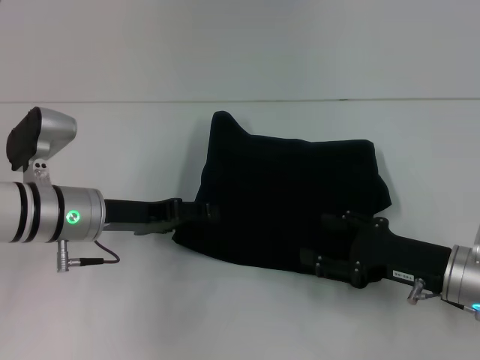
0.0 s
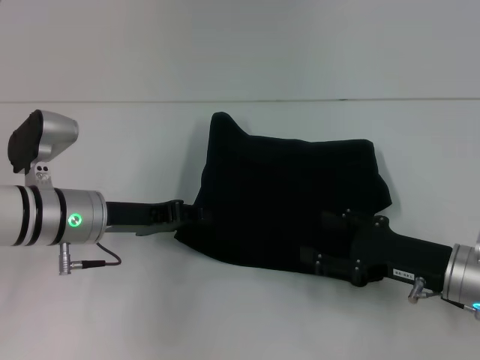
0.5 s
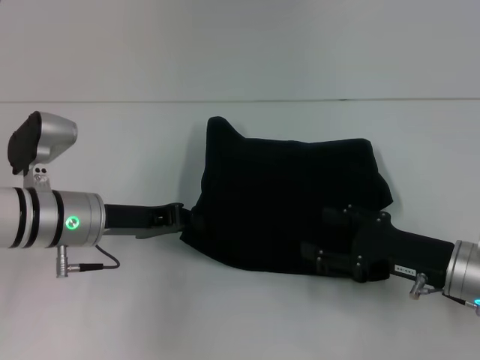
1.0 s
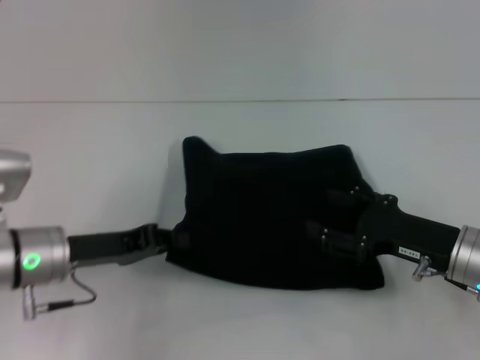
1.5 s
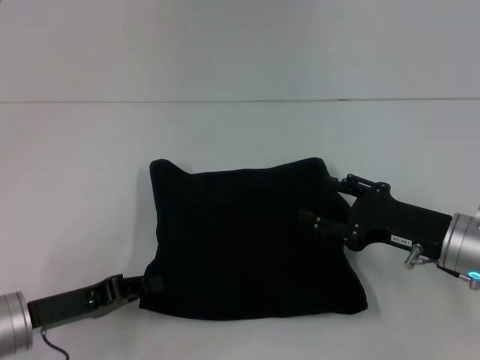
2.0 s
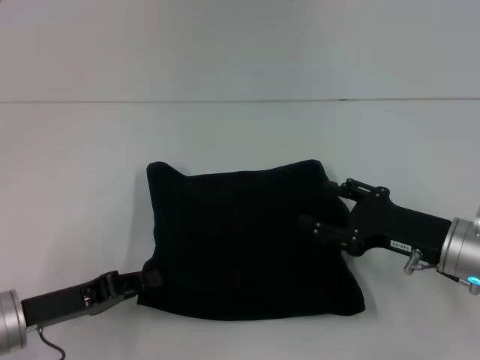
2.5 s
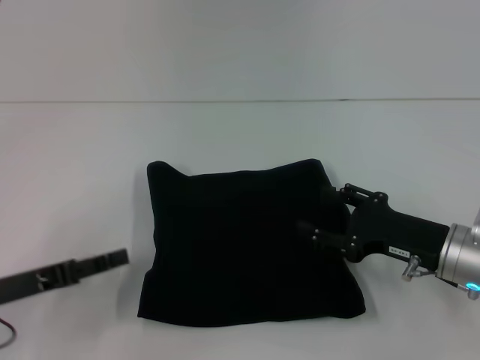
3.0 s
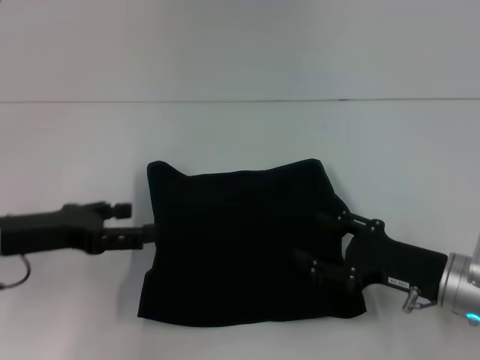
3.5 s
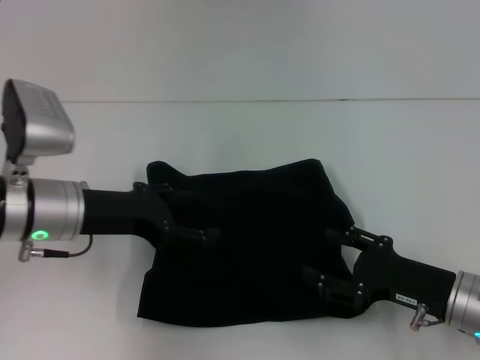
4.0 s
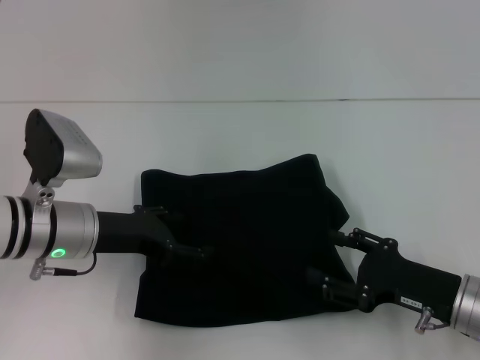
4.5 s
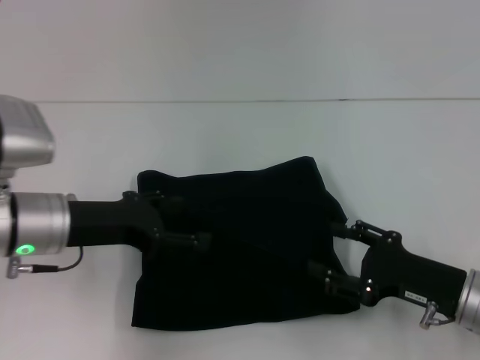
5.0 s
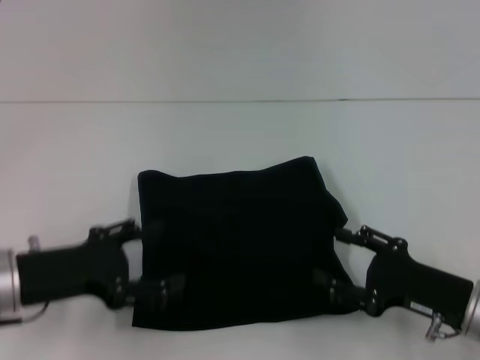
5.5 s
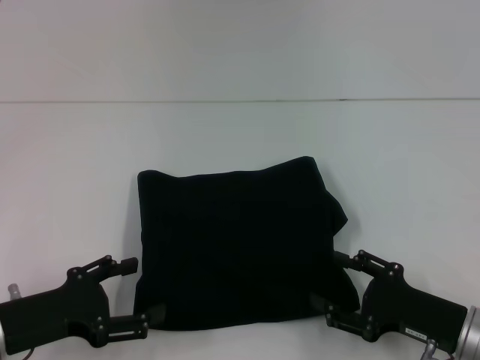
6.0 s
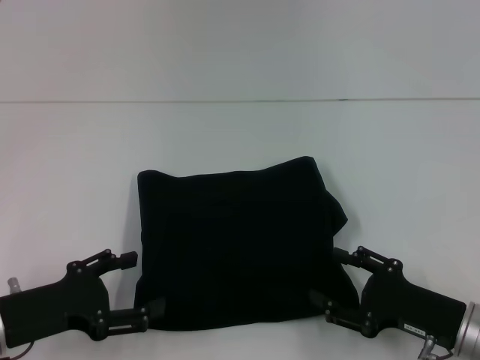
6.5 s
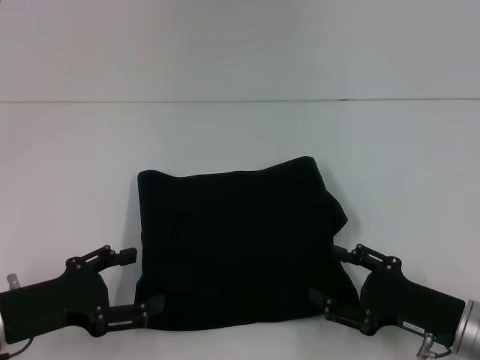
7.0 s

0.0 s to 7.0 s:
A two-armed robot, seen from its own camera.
0.0 to 2.0 s: The left gripper heads backward and to the left, covering some 10 cm, and closes its fingers.
2.0 to 3.5 s: The left gripper moves upward and forward, approximately 10 cm, and opens its fingers.
3.5 to 5.0 s: The left gripper travels to the right by some 5 cm.
5.0 to 7.0 s: The left gripper is displaced backward, downward and to the left by about 10 cm.

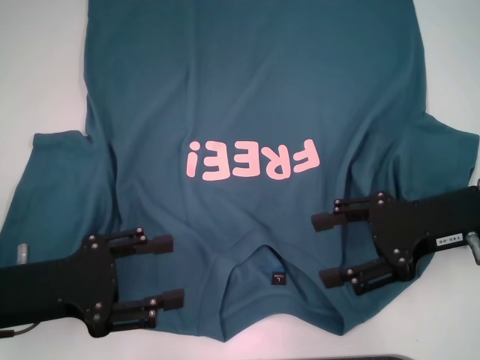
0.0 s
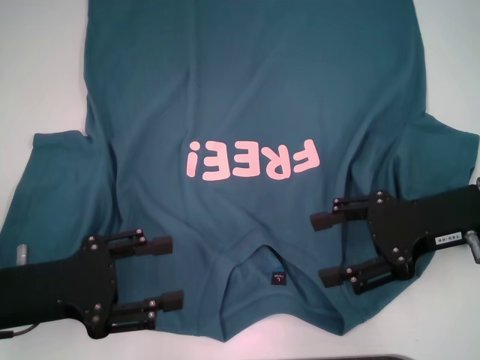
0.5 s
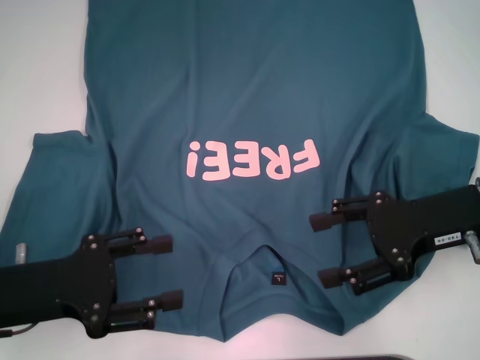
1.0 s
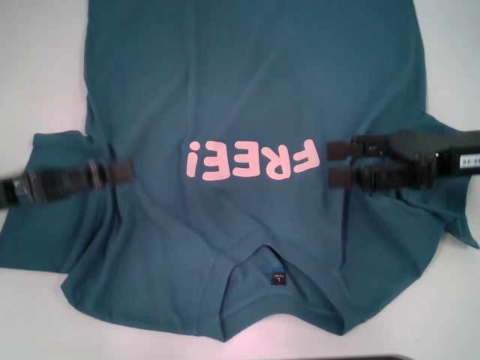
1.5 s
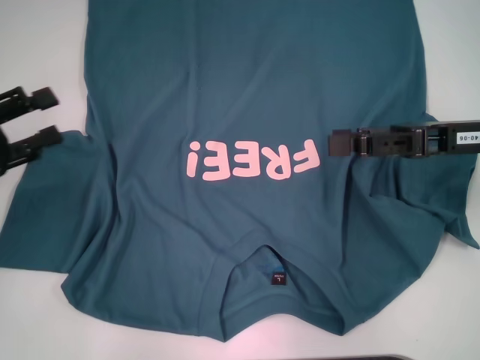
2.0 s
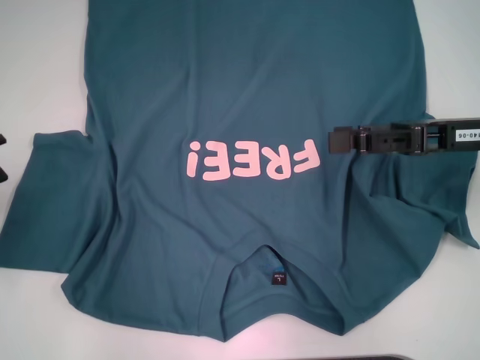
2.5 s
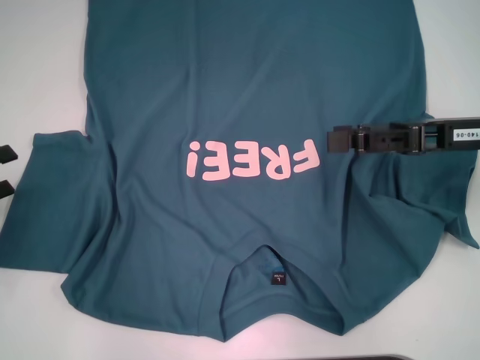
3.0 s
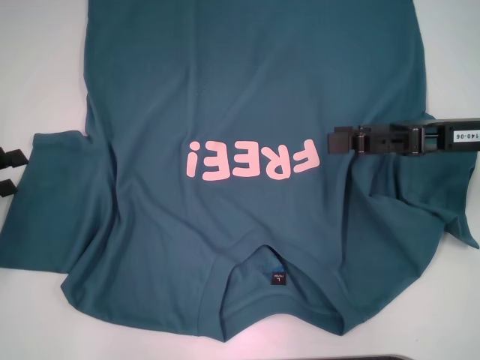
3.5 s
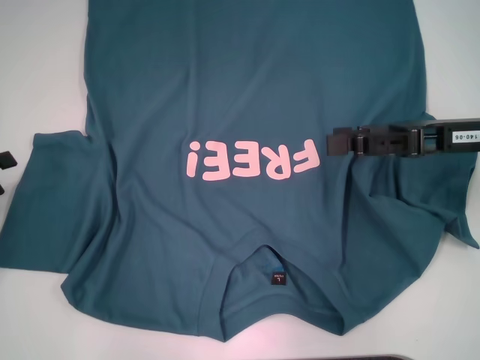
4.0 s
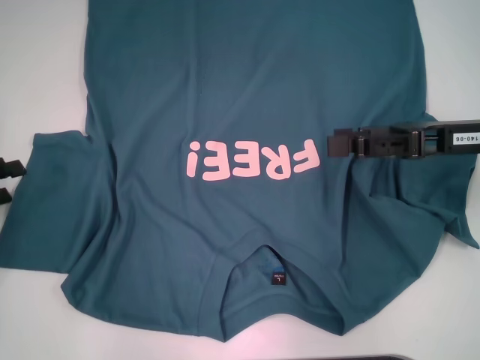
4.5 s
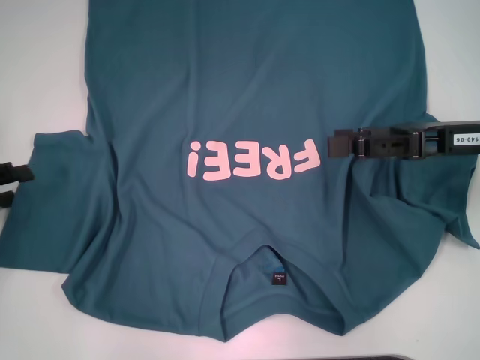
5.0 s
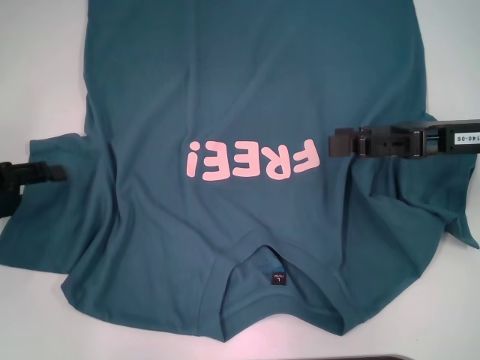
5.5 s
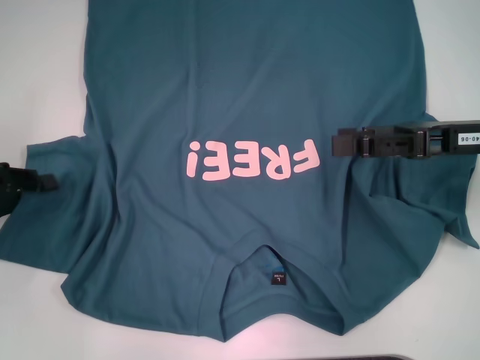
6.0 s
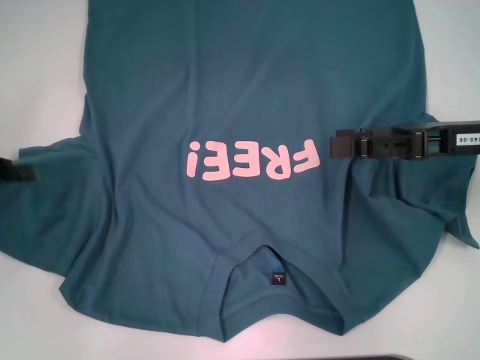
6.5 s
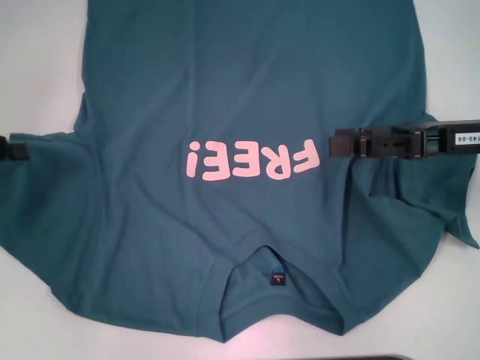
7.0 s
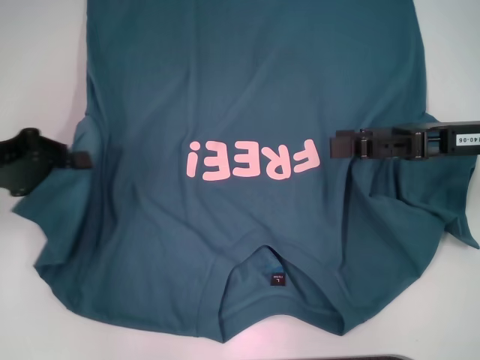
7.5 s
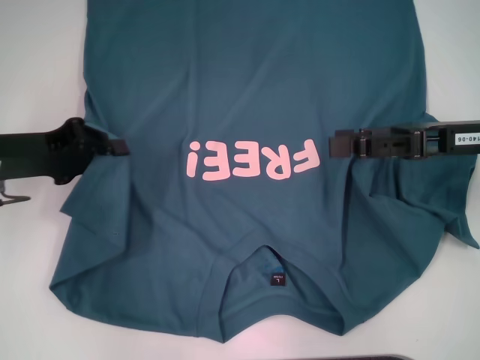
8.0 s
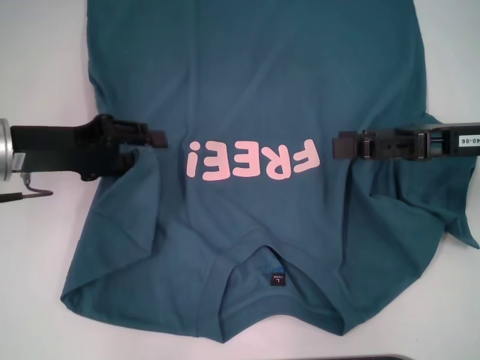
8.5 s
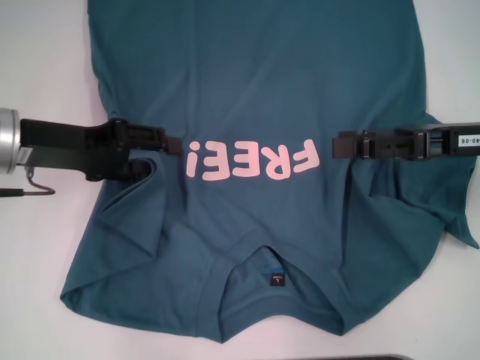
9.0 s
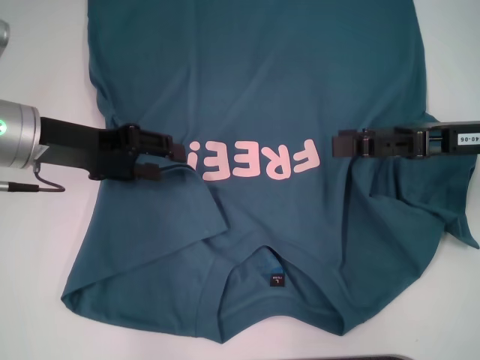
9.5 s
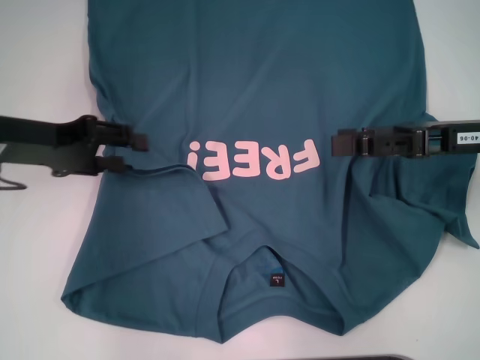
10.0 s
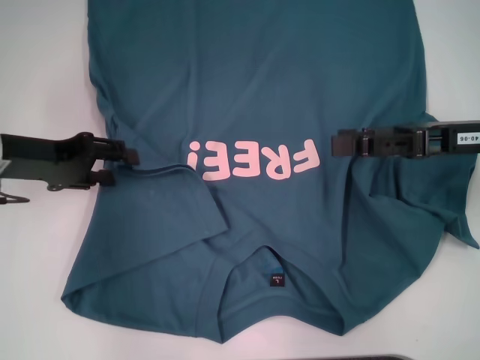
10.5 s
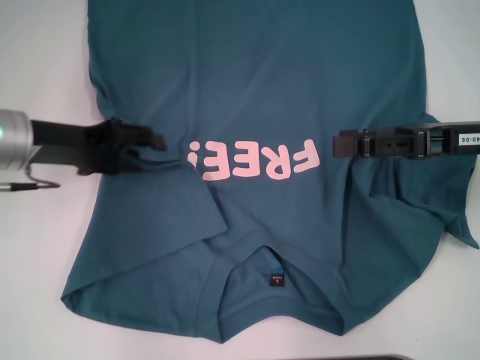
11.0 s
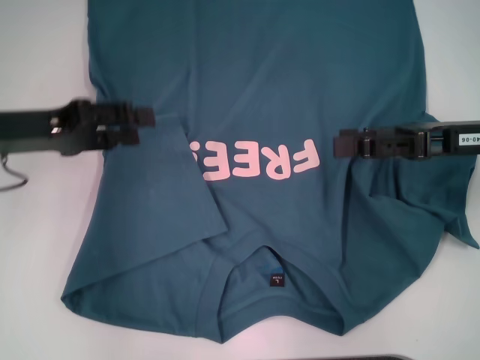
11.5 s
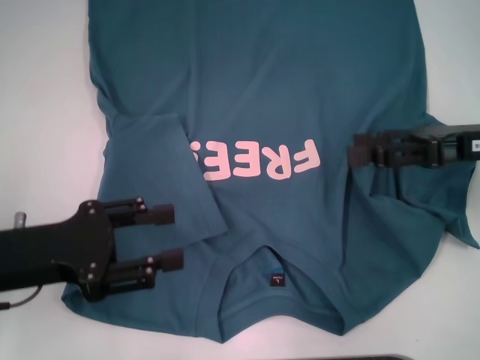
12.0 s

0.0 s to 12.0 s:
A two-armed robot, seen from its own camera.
Step, 0.0 to 11.0 s: Fold the bottom left sleeve with your left hand.
0.0 to 2.0 s: The right gripper moves about 5 cm. Meanwhile the left gripper goes approximately 10 cm to the left and forward.
2.0 to 4.0 s: The left gripper moves roughly 5 cm.
4.0 to 6.0 s: The left gripper closes up.
6.0 to 8.0 s: The left gripper shifts about 5 cm to the right, and closes up.
8.0 to 10.0 s: The left gripper opens.
10.0 to 12.0 s: The left gripper heads backward, covering about 10 cm.

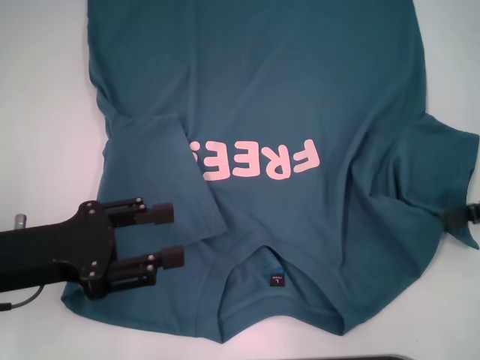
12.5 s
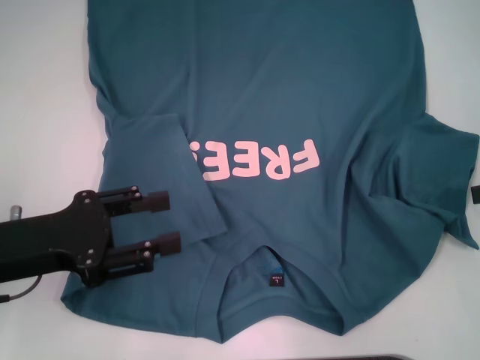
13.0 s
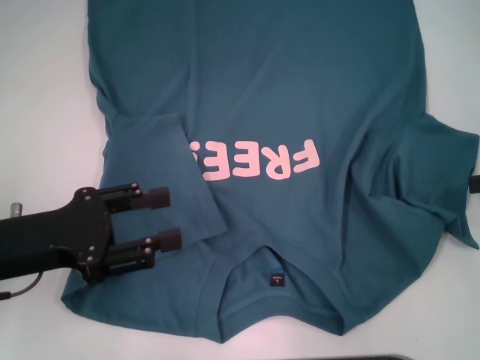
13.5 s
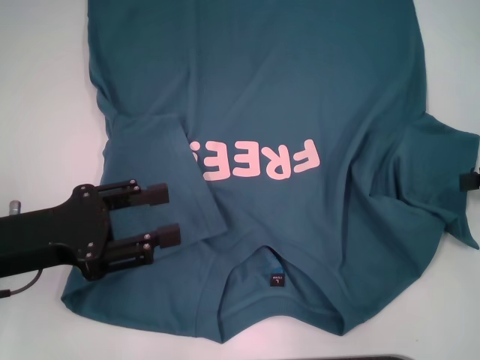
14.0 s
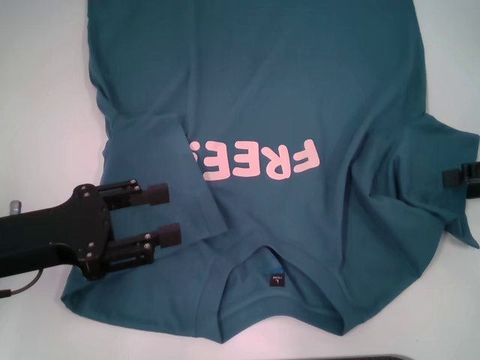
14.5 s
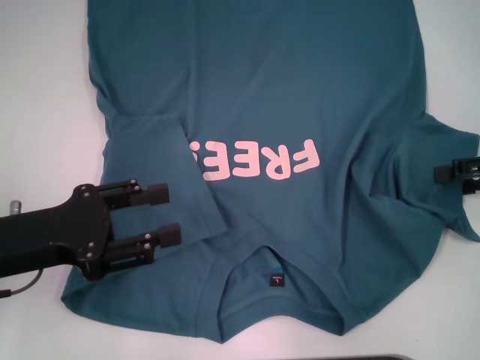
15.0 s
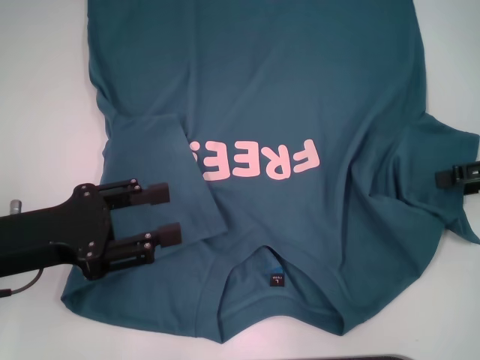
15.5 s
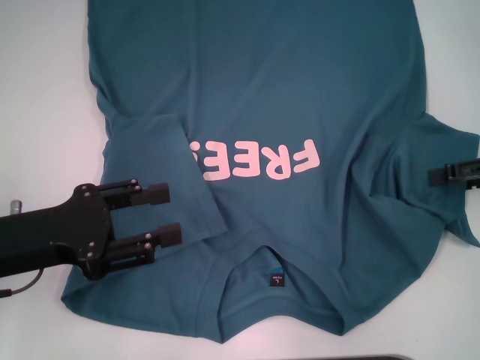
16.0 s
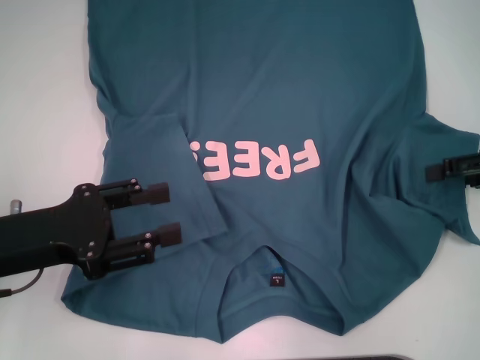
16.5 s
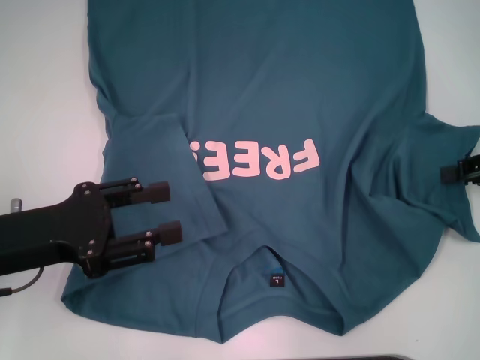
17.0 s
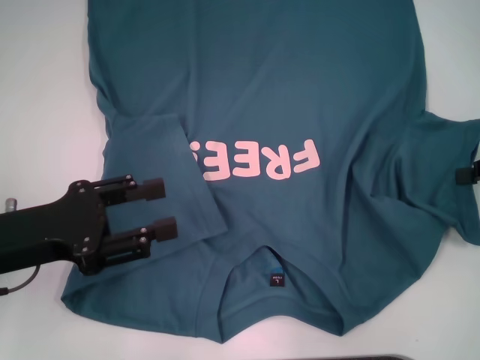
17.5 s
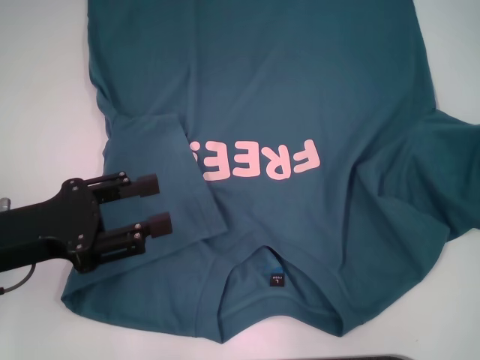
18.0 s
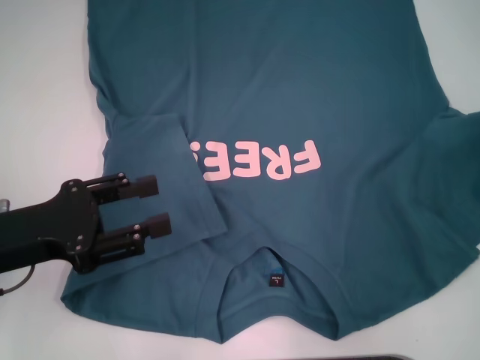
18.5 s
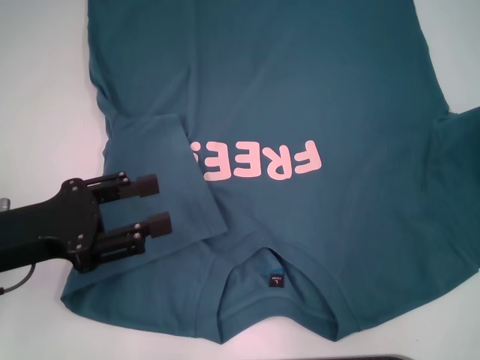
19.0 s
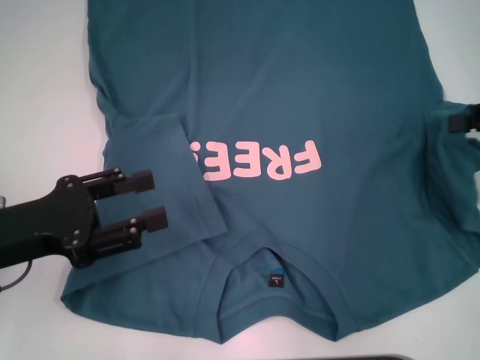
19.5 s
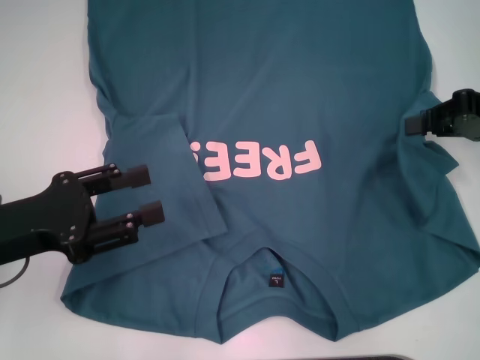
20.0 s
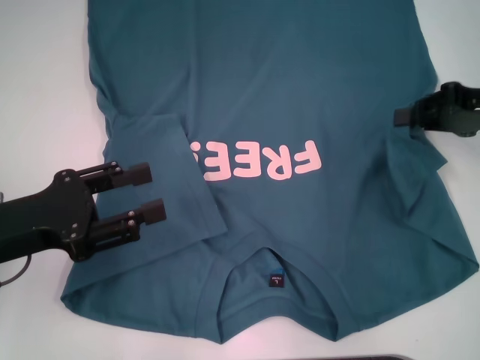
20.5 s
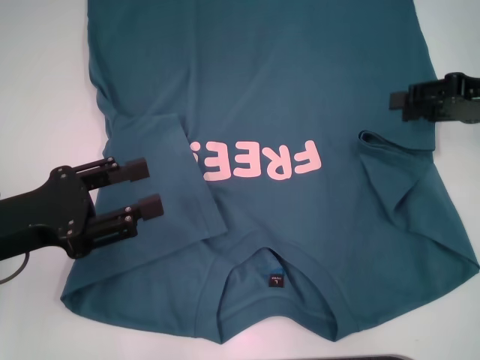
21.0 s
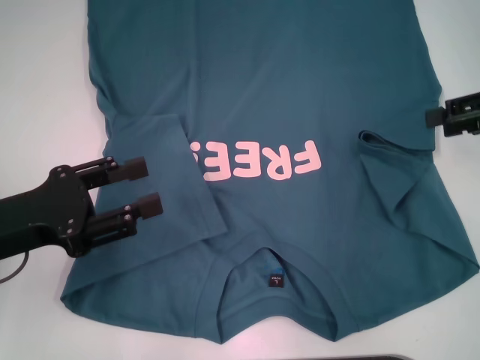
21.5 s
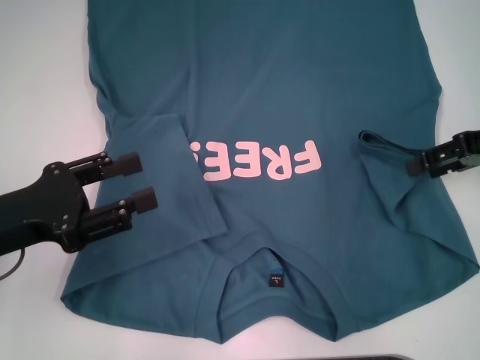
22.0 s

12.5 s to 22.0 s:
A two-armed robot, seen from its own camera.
12.5 to 16.5 s: There are only small adjustments of the grippers.
16.5 to 18.0 s: The right gripper changes place by about 5 cm, and closes its fingers.
18.0 to 20.0 s: The right gripper goes roughly 5 cm to the left.
20.0 to 22.0 s: The right gripper opens.
